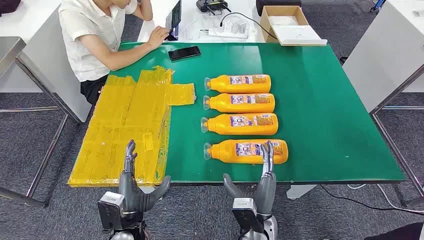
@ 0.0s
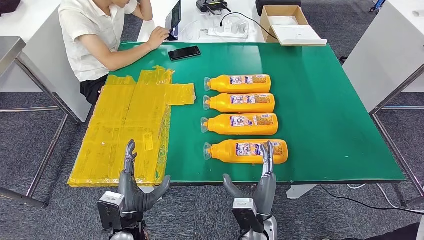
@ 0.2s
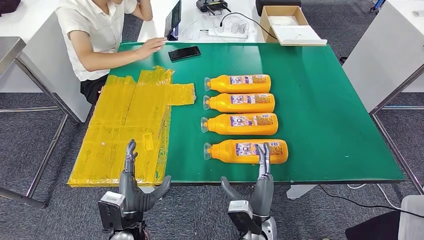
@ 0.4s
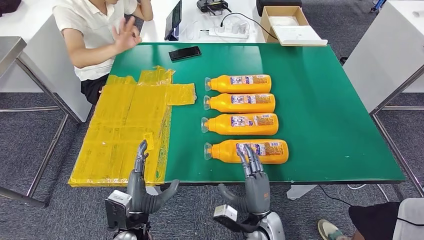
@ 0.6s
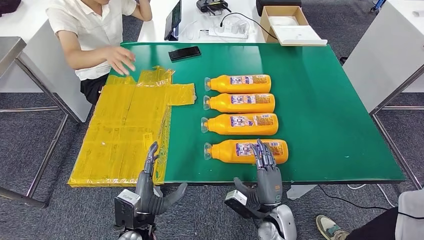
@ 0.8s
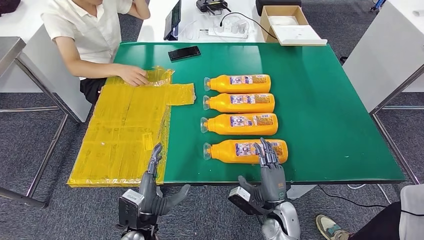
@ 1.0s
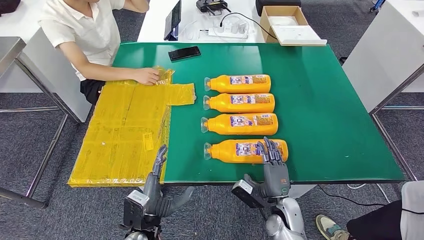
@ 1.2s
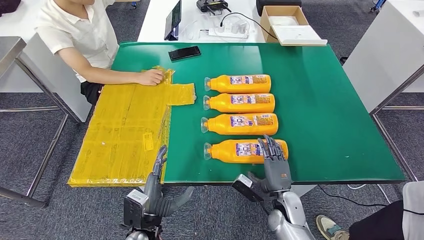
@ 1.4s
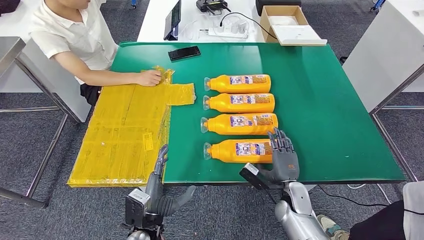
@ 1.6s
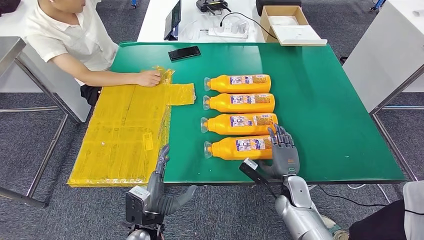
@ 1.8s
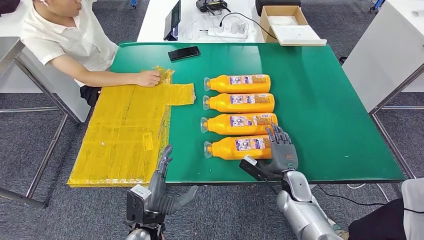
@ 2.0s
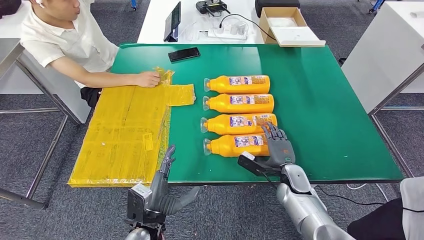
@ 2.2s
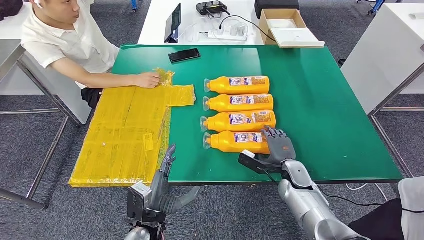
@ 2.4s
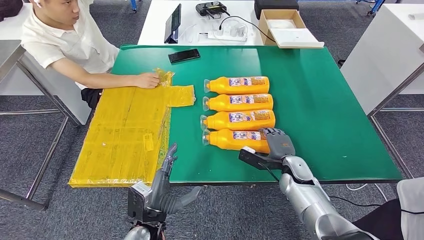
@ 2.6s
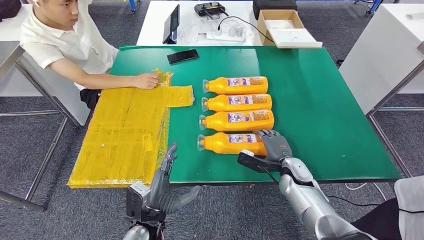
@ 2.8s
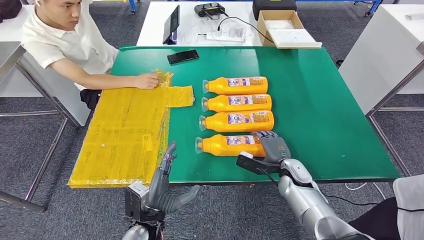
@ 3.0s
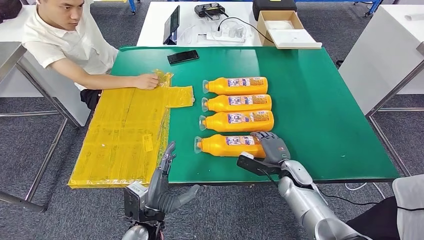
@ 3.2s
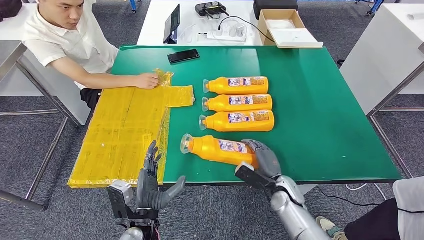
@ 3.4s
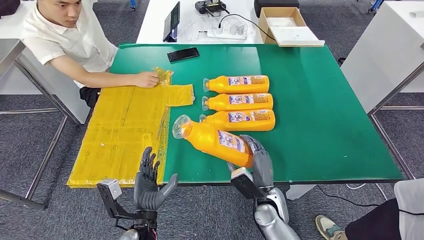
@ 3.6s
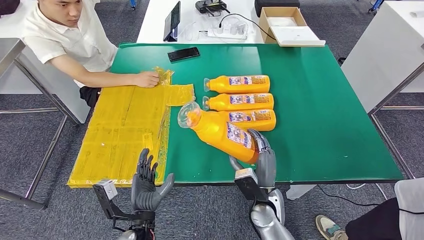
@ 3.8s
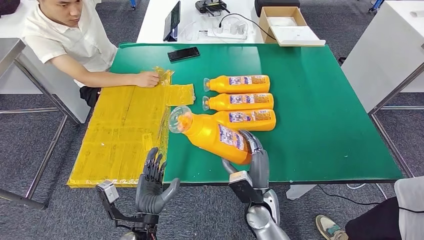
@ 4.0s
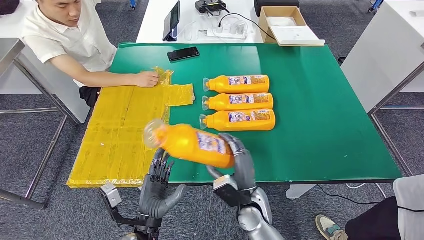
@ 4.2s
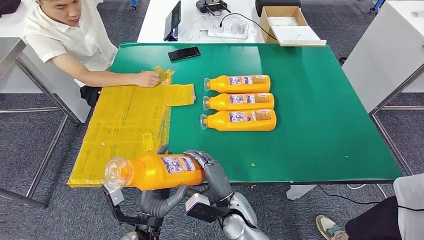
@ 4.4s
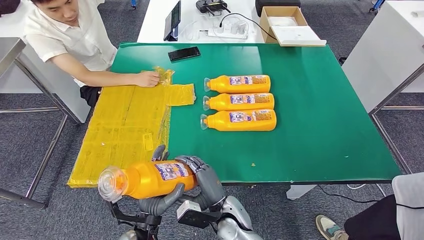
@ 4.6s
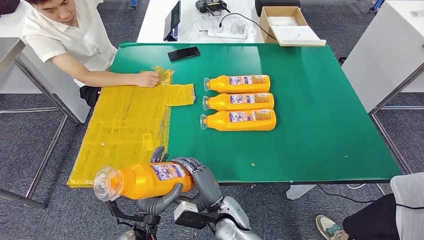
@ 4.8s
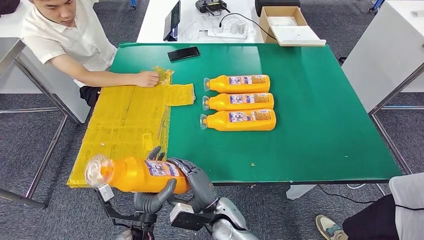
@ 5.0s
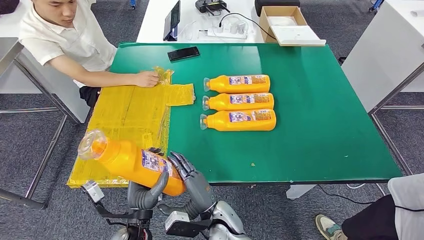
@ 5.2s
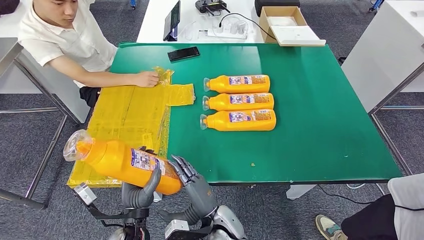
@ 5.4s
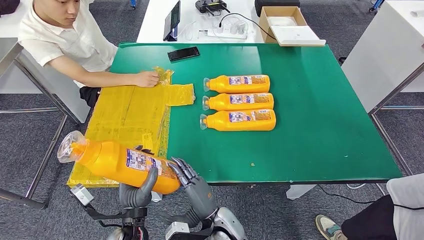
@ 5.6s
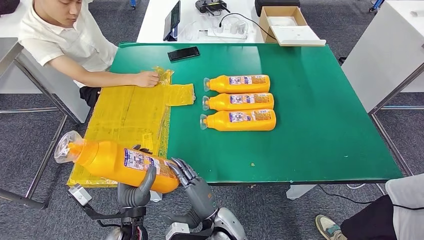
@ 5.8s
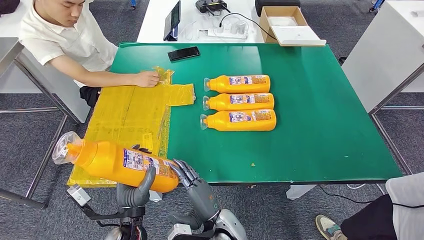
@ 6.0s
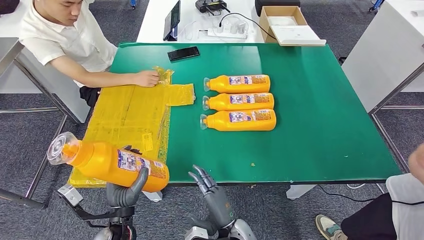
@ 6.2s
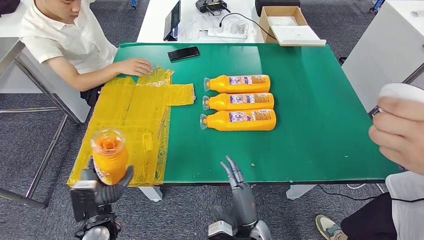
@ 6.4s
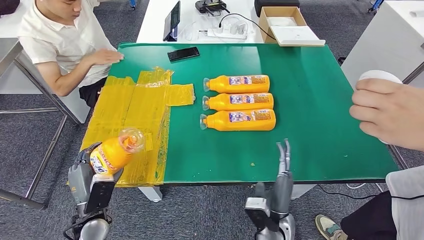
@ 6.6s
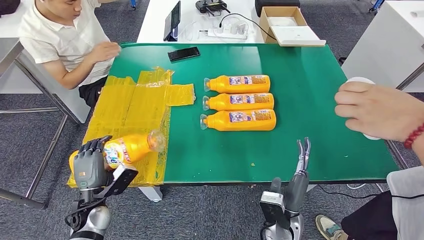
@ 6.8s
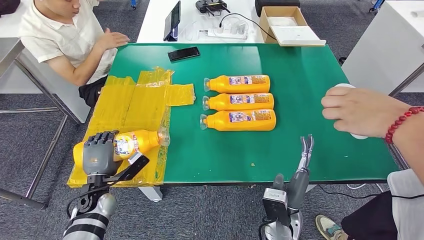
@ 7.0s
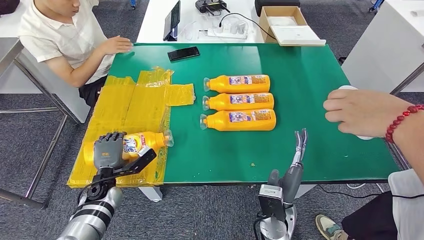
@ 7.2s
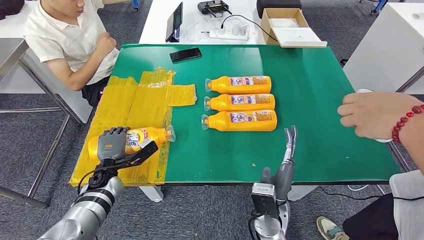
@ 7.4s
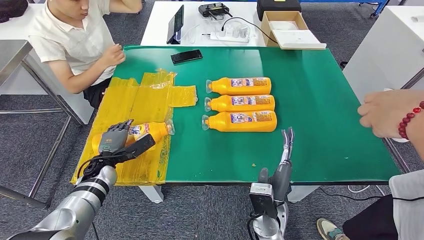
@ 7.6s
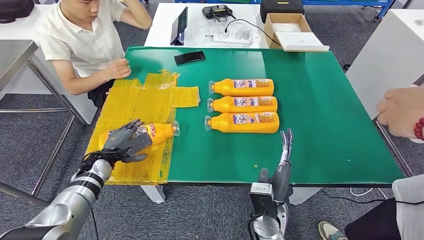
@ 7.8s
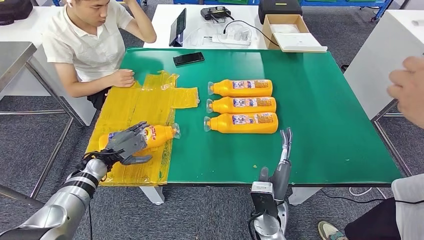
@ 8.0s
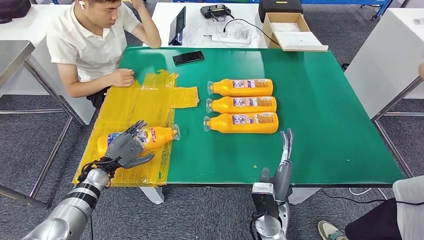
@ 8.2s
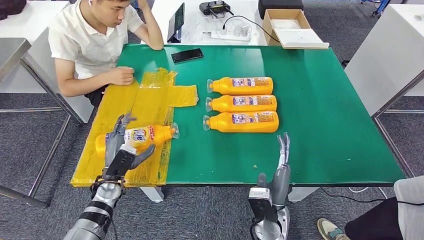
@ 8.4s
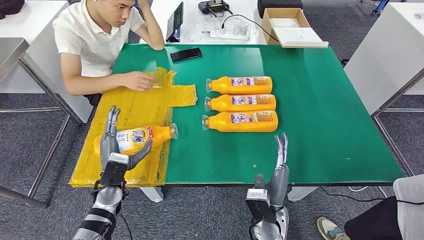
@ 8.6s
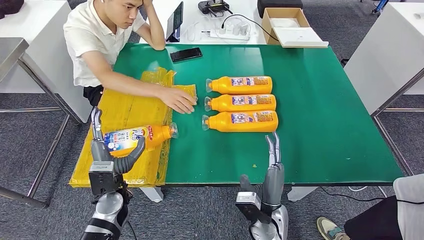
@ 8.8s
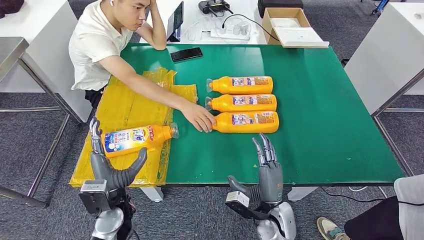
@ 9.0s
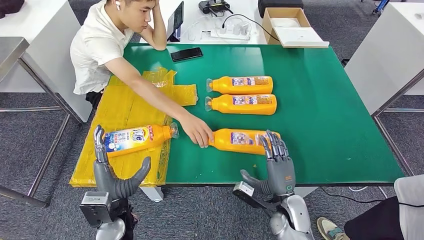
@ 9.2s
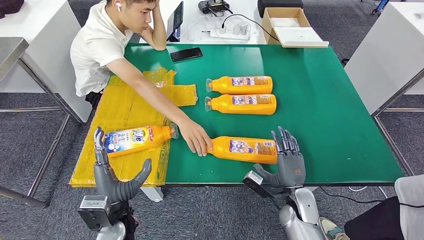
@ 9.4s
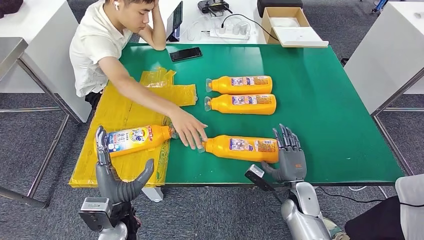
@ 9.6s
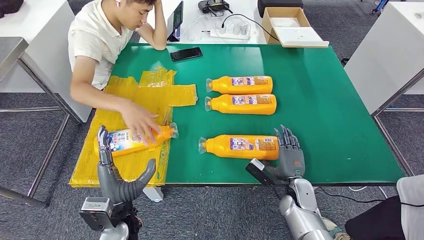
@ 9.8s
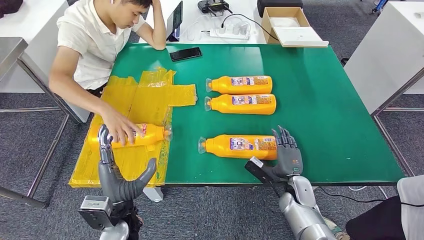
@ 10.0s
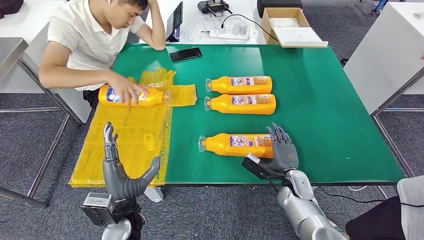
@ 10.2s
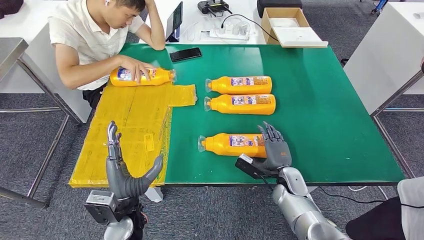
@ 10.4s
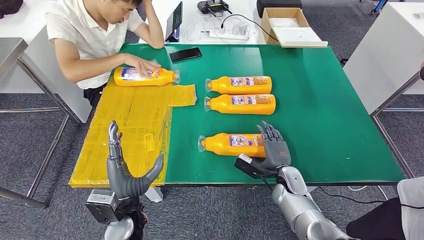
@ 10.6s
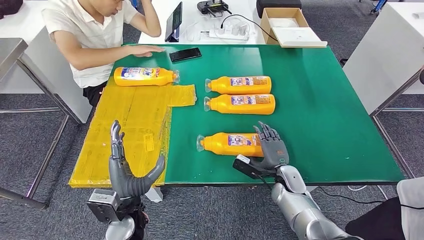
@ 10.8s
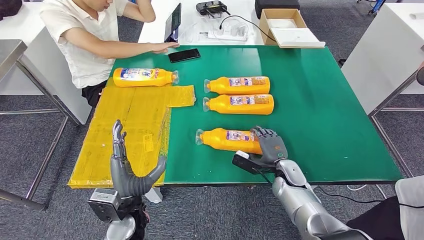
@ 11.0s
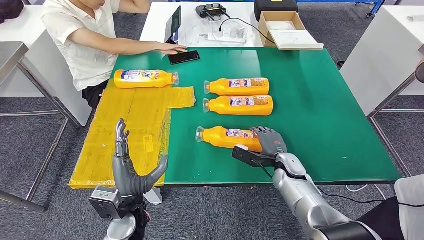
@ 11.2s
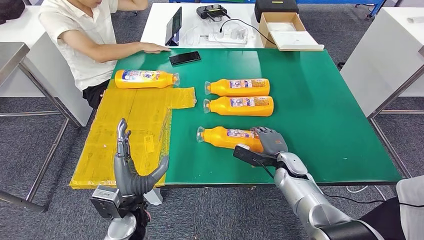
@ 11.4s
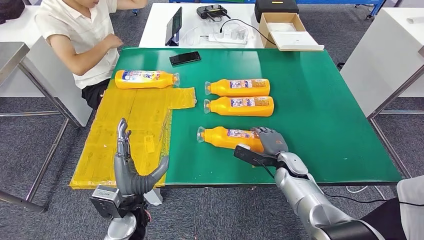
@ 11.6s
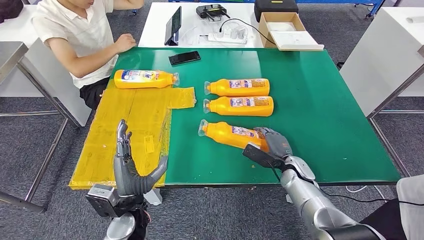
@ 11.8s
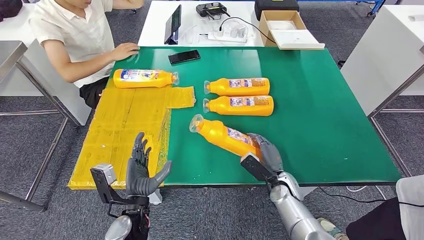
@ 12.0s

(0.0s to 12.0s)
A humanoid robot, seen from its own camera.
Step, 0.0s - 4.8s: Take the fast-moving consumer goods bottle from the table.
Step, 5.0s - 8.6s: Flip the fast-moving consumer goods bottle to the front side.
4.4s - 6.0s: The right hand ends up roughly 5 cm from where it was.

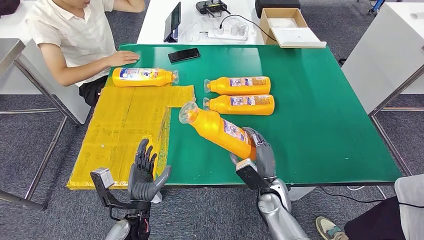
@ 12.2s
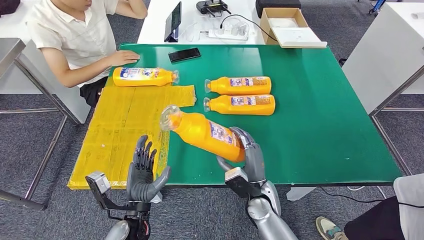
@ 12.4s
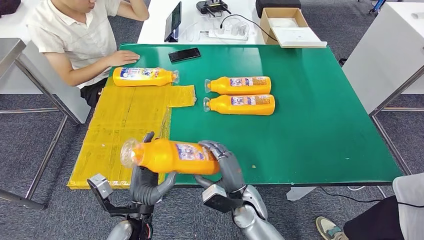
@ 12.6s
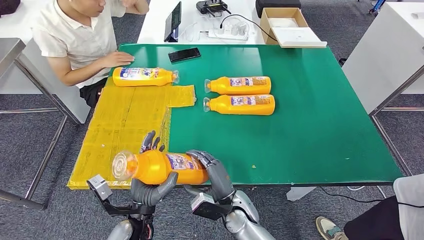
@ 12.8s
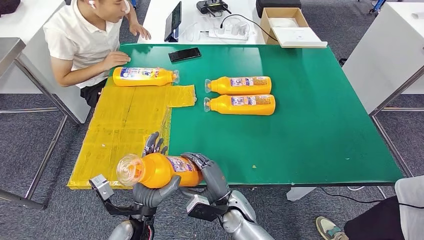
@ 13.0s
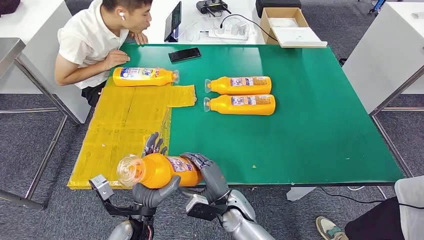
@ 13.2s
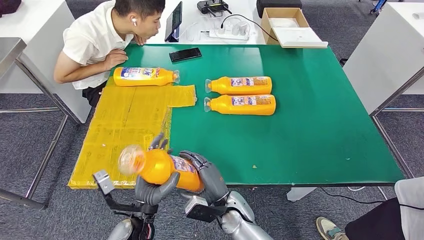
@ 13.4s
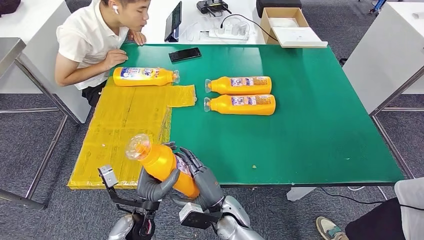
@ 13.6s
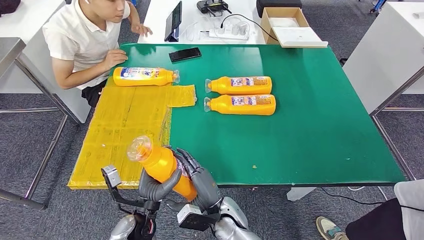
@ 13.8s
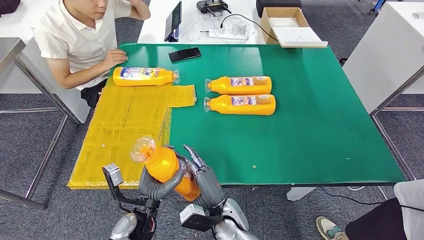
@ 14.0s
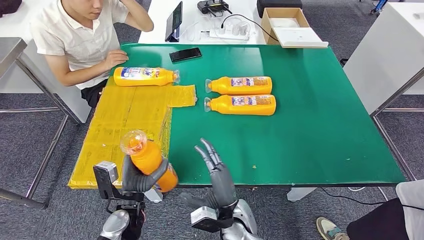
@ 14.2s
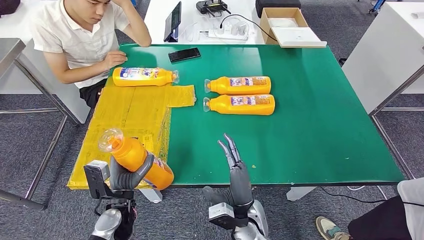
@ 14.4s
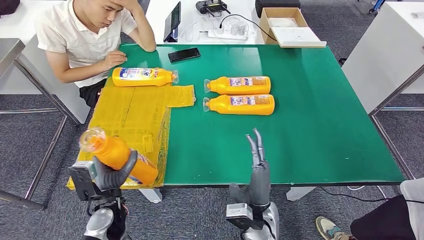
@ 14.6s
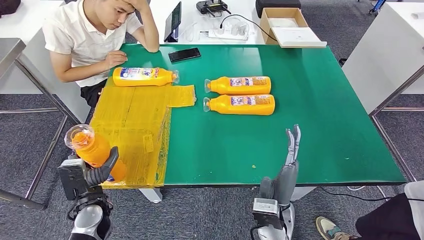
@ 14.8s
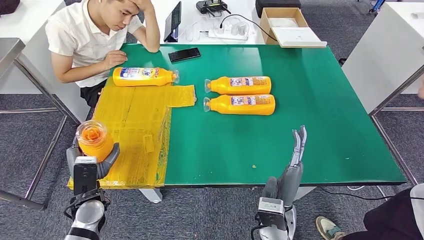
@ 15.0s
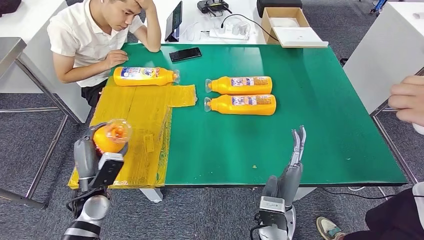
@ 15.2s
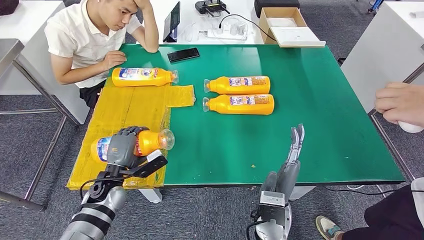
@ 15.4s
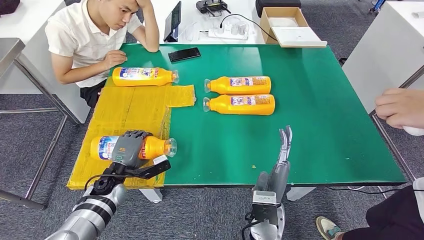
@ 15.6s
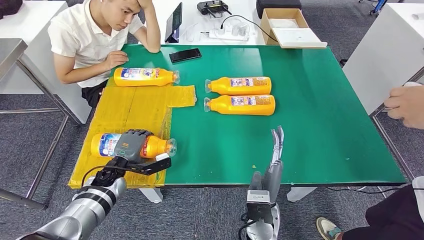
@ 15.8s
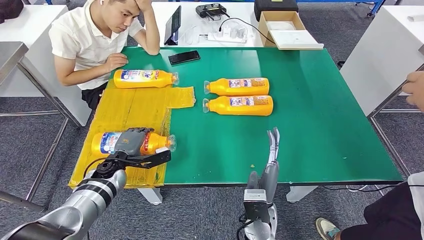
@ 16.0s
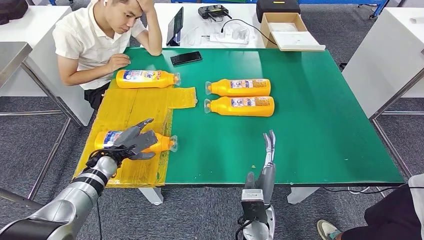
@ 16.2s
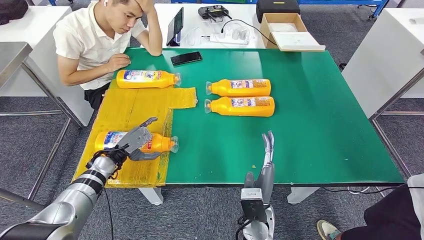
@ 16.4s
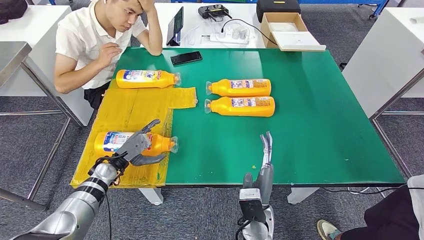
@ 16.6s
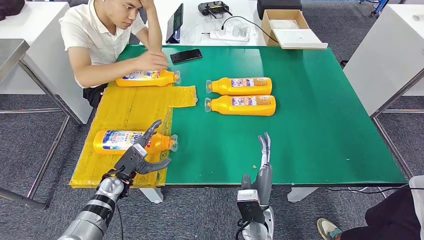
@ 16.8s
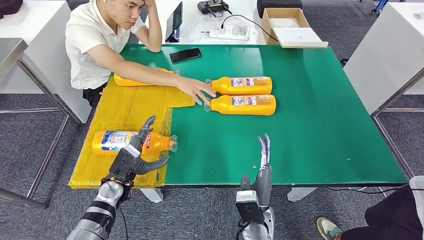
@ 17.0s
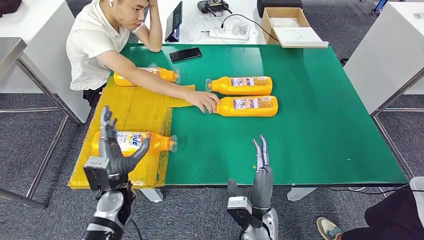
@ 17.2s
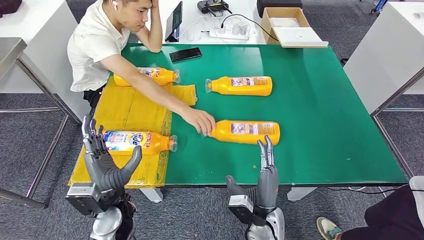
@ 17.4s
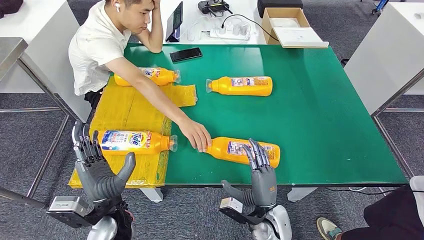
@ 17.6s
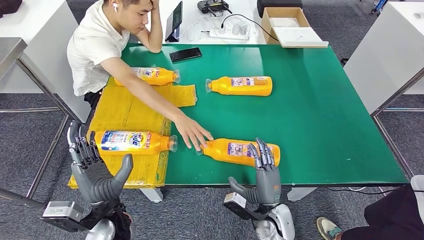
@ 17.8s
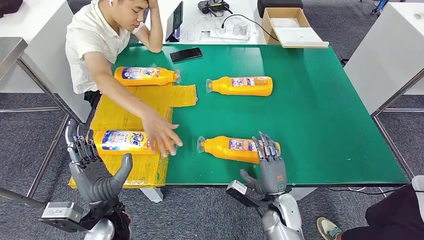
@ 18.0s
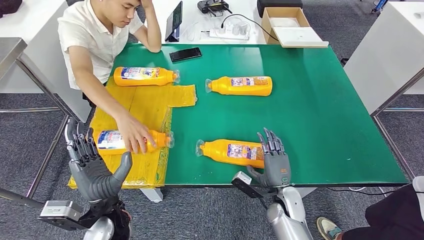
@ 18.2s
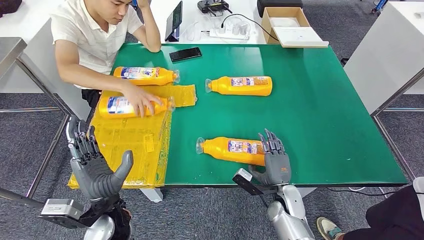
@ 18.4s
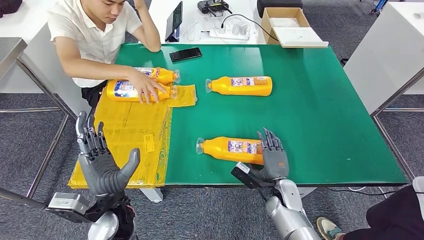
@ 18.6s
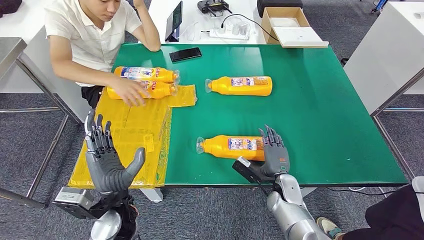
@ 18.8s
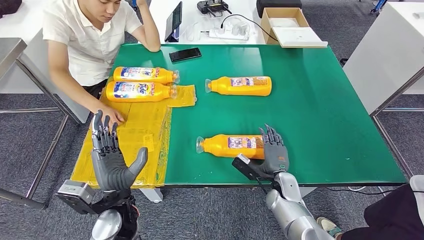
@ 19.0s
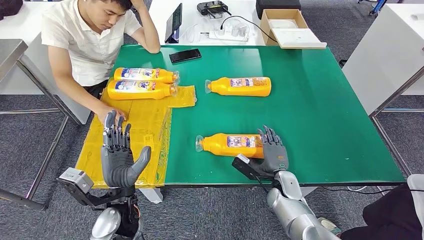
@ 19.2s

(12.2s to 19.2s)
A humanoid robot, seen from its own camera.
Step, 13.0s - 17.0s: Flip the fast-moving consumer goods bottle to the front side.
12.2s - 13.6s: The right hand goes approximately 15 cm to the left.
